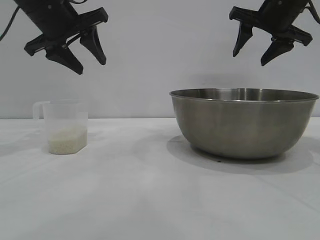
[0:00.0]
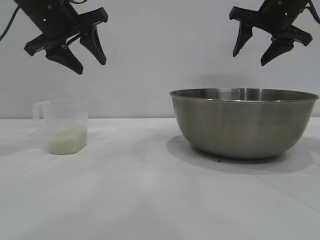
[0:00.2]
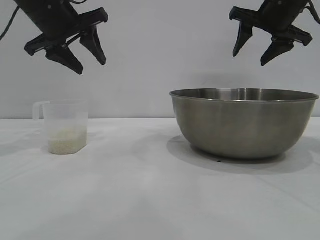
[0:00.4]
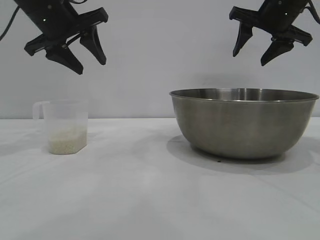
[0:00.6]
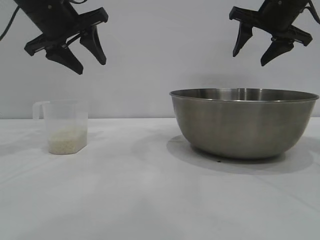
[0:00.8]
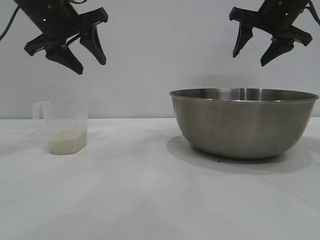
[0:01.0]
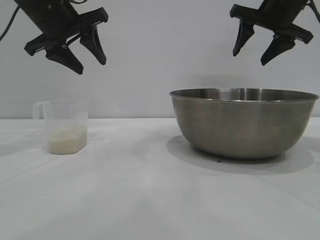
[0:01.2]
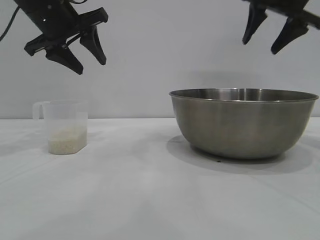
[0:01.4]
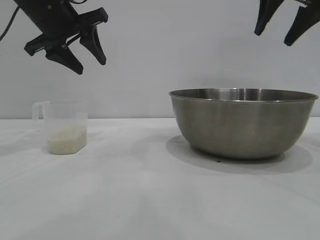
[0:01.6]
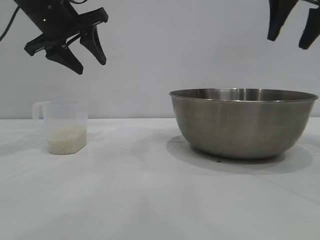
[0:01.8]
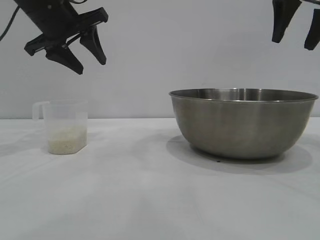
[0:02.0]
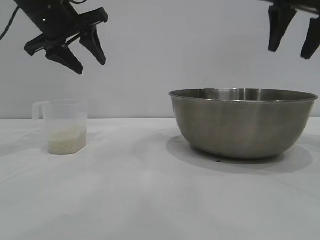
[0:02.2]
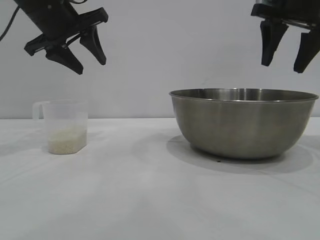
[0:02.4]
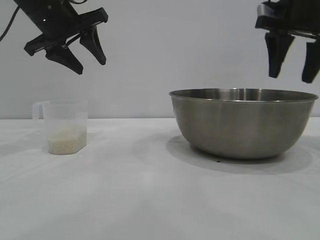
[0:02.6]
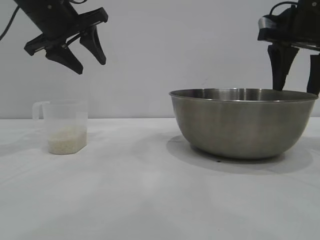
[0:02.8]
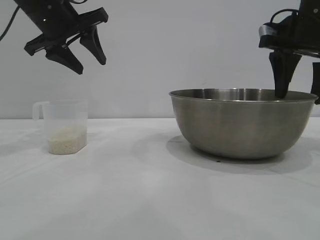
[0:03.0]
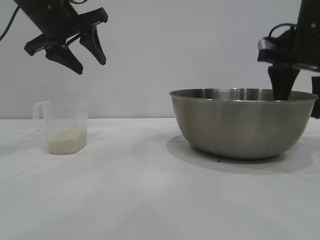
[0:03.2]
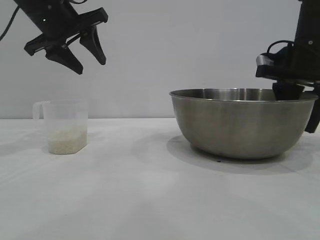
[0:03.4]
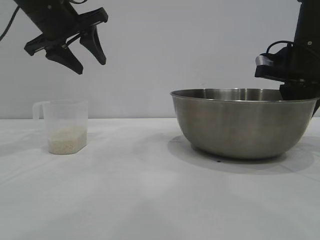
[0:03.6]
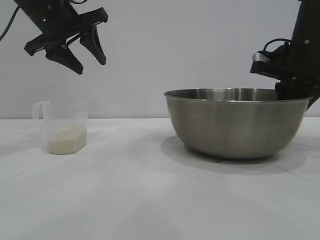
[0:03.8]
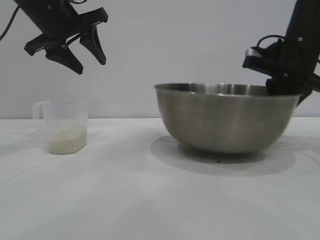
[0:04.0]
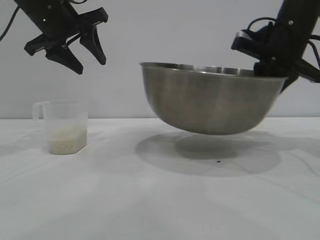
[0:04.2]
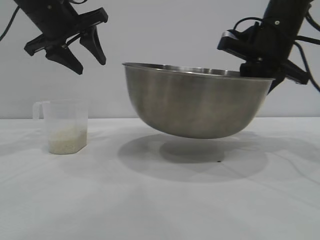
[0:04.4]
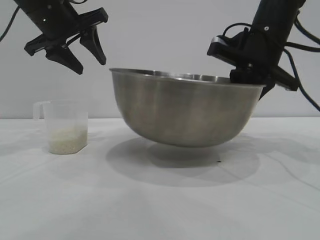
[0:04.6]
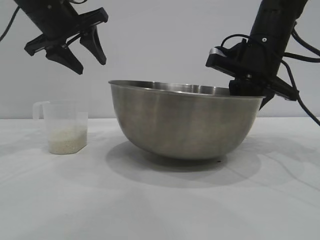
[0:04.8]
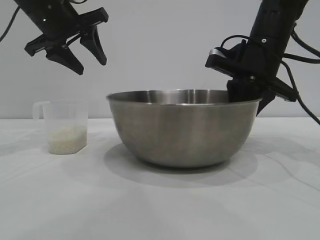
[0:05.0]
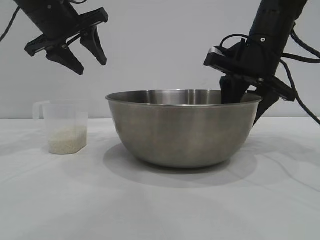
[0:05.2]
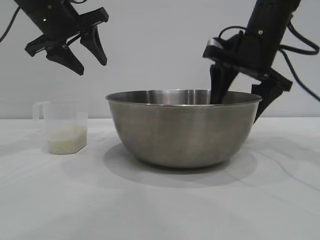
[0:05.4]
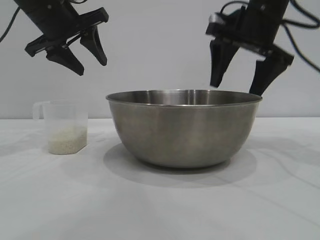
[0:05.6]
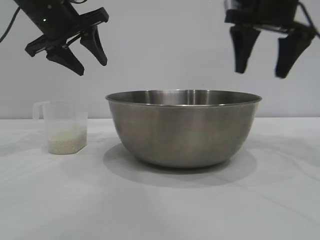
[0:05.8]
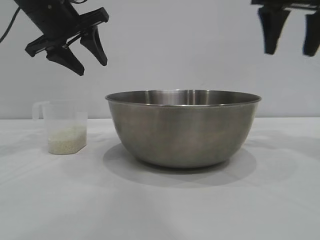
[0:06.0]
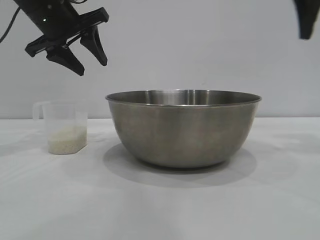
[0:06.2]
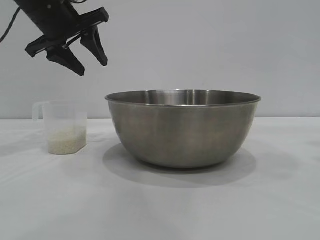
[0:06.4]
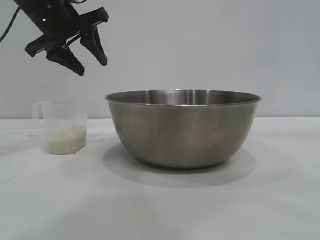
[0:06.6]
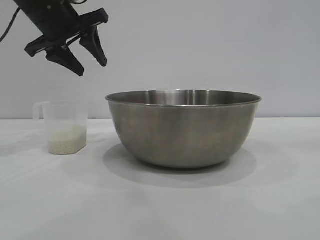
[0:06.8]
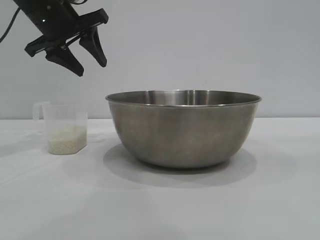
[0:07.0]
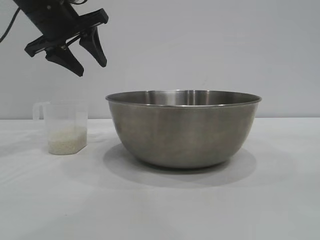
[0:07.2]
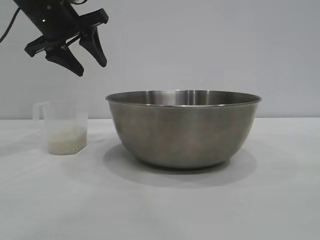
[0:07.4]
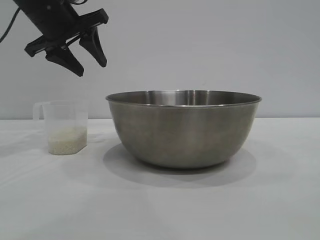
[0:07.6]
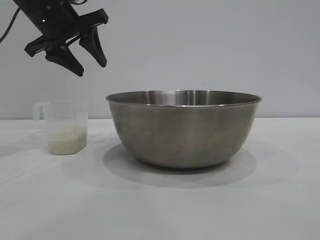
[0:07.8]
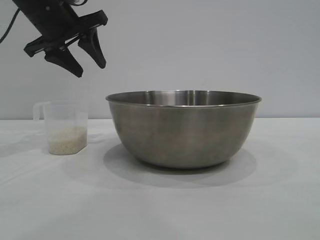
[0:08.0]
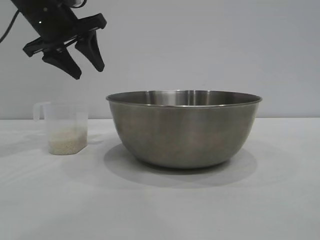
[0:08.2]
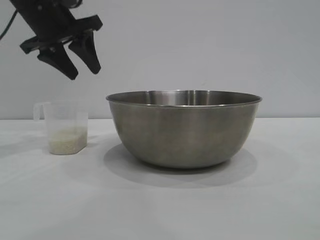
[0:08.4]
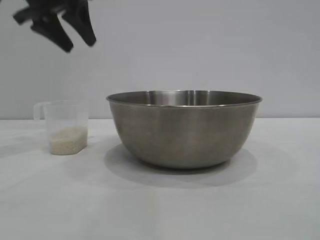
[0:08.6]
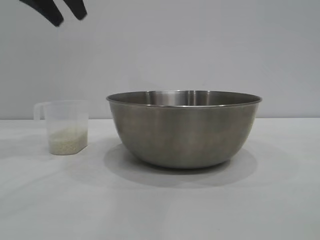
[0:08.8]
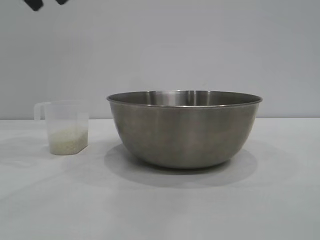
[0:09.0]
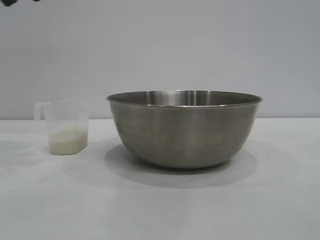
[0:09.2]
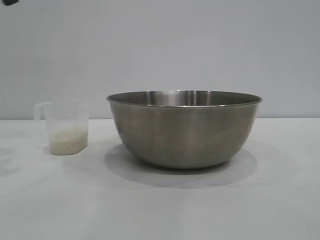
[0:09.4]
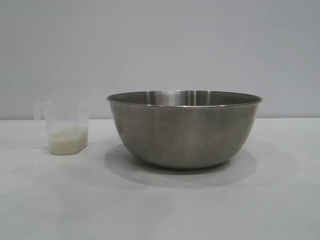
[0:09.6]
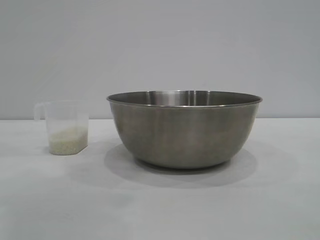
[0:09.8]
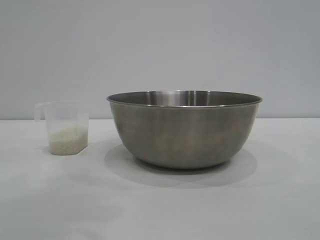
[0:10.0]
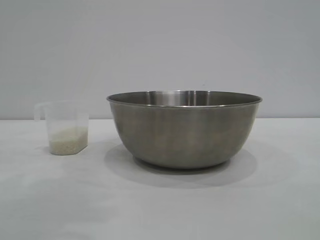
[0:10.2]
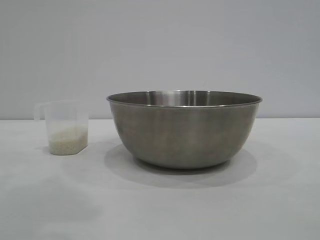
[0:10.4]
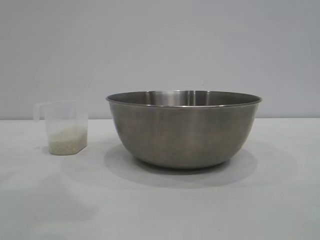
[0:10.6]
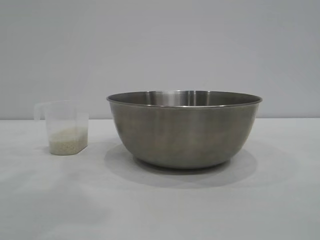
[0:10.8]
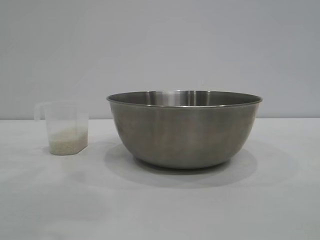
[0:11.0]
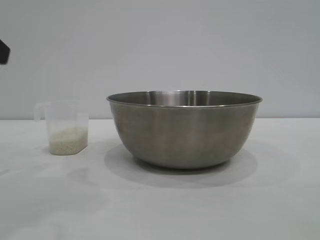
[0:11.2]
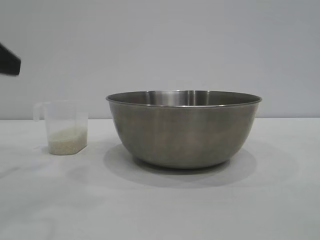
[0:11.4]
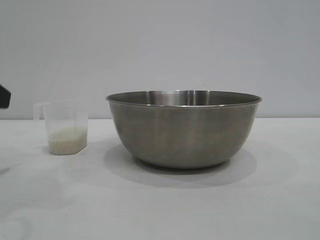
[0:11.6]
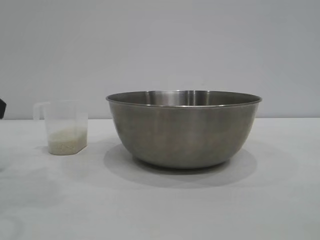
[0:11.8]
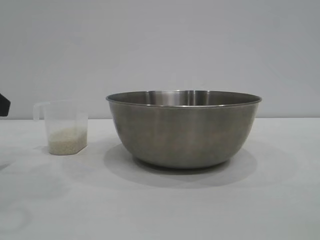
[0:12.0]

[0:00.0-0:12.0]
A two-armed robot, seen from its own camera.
Task of the whole recording: the right gripper grasp the rice container and place it in the center of the table, the left gripper grasp the rice scoop and pour the rice into the rice container.
Step, 0:00.0 to 0:04.0: Pick up the bowl with the right gripper.
Step, 0:04.2 to 0:05.6: Place the bowl in the center of view with the right gripper.

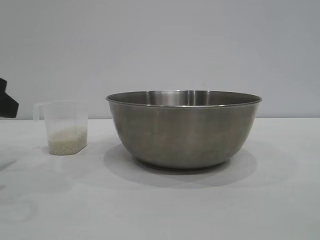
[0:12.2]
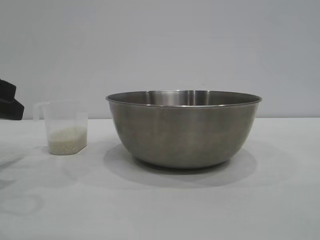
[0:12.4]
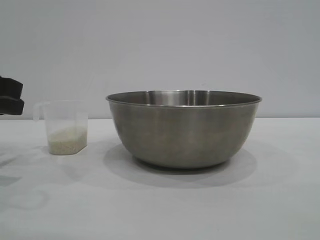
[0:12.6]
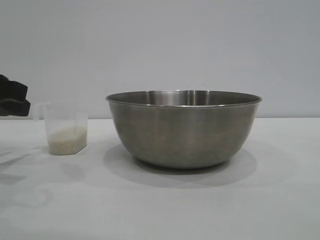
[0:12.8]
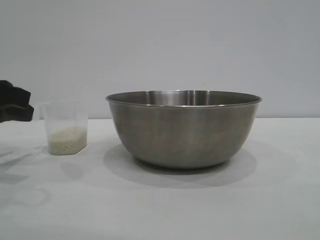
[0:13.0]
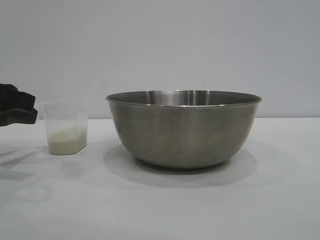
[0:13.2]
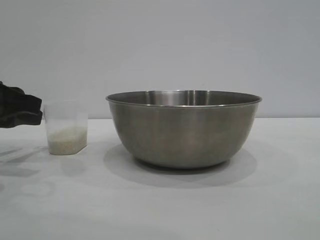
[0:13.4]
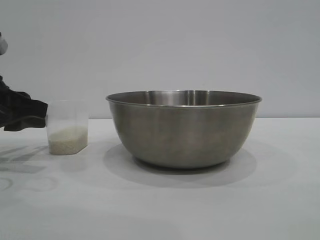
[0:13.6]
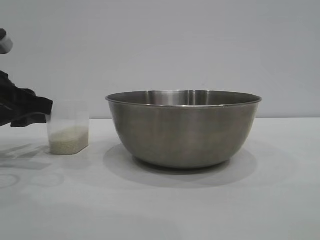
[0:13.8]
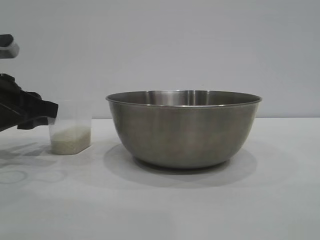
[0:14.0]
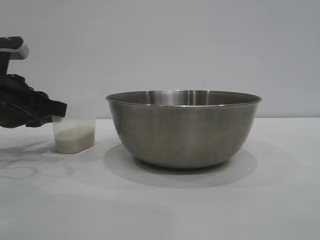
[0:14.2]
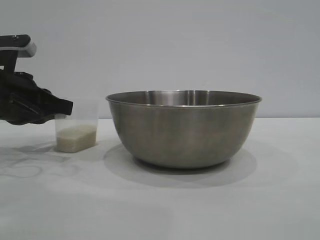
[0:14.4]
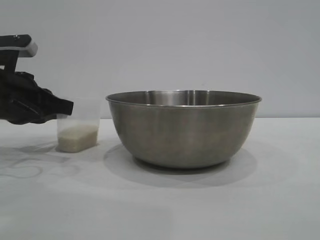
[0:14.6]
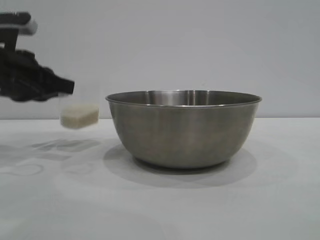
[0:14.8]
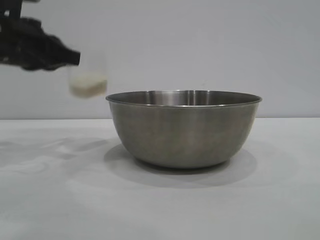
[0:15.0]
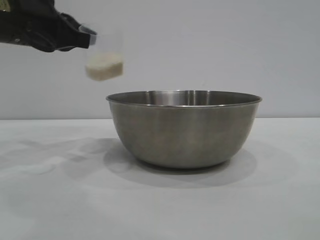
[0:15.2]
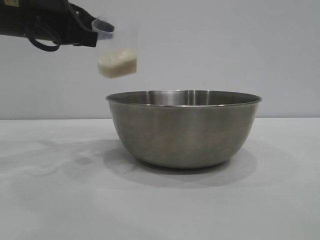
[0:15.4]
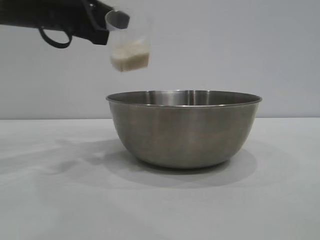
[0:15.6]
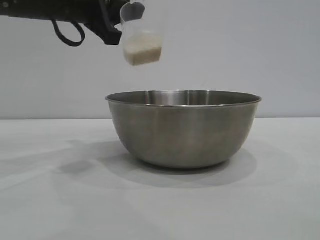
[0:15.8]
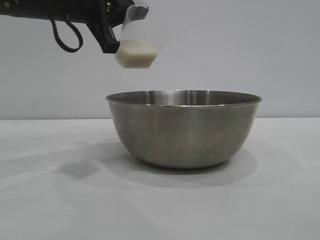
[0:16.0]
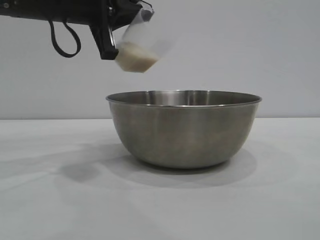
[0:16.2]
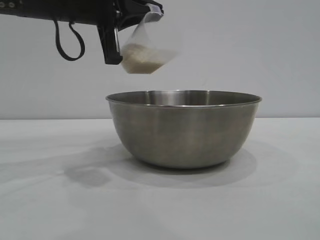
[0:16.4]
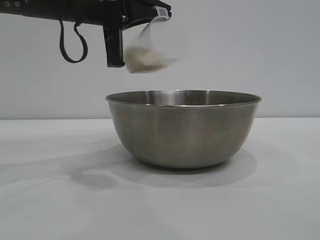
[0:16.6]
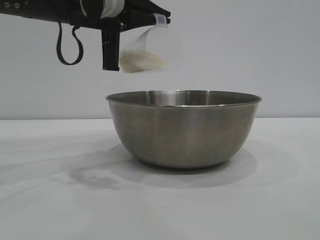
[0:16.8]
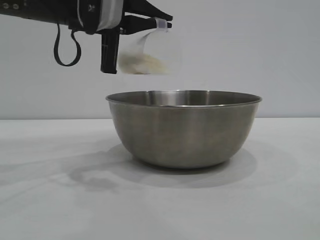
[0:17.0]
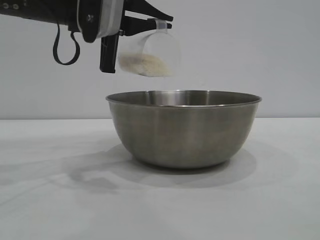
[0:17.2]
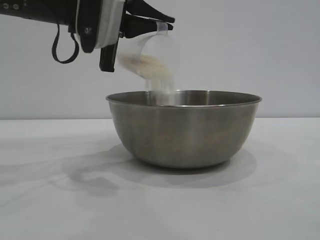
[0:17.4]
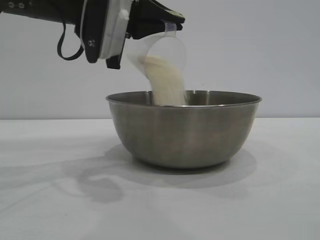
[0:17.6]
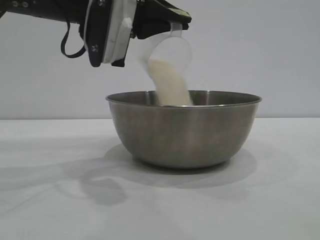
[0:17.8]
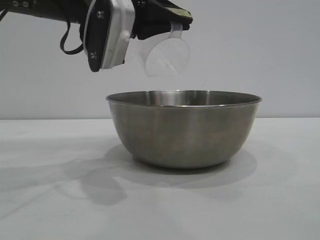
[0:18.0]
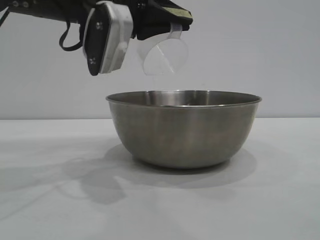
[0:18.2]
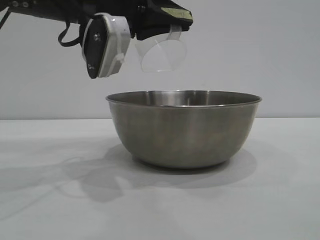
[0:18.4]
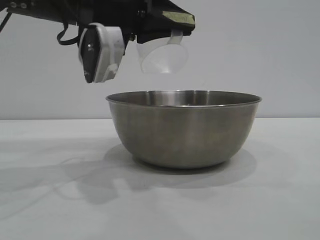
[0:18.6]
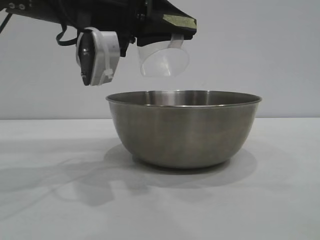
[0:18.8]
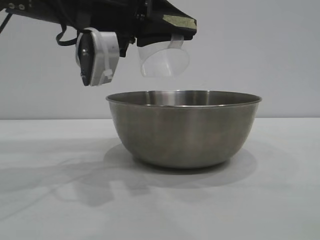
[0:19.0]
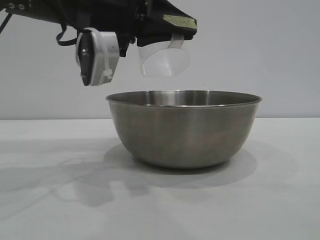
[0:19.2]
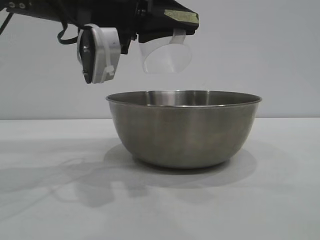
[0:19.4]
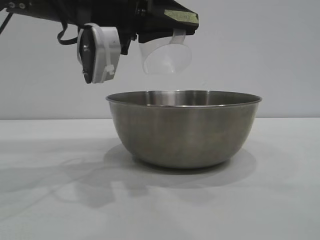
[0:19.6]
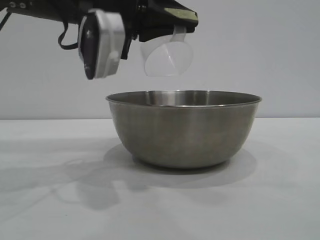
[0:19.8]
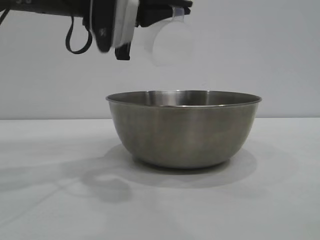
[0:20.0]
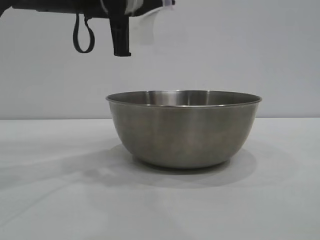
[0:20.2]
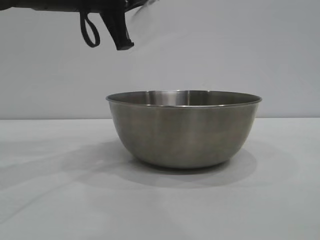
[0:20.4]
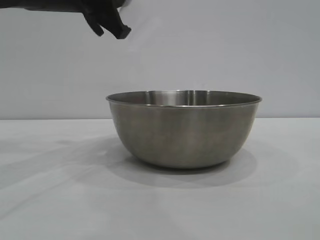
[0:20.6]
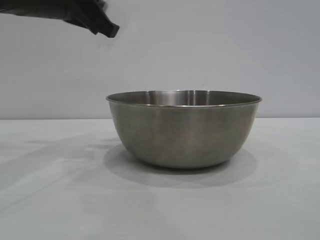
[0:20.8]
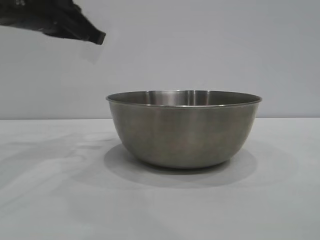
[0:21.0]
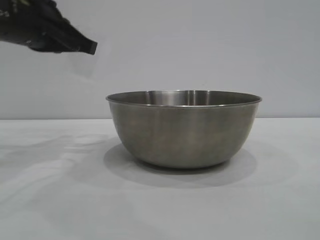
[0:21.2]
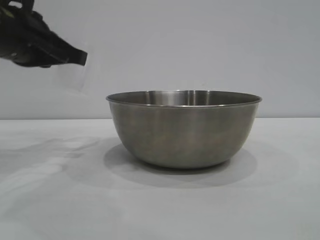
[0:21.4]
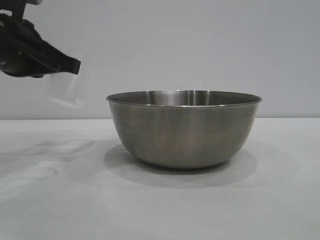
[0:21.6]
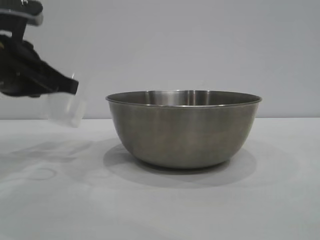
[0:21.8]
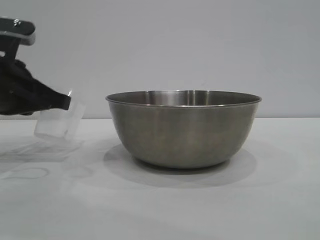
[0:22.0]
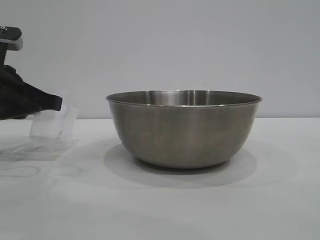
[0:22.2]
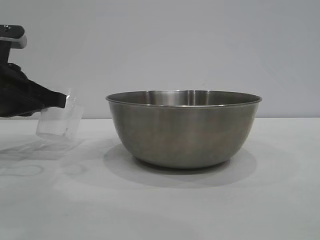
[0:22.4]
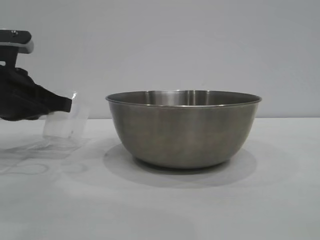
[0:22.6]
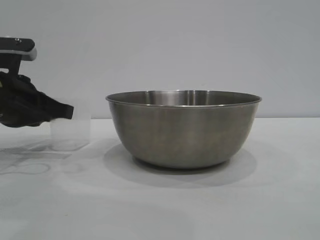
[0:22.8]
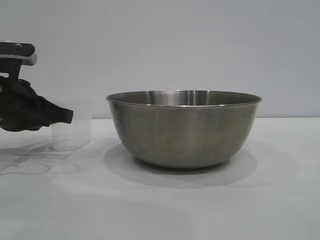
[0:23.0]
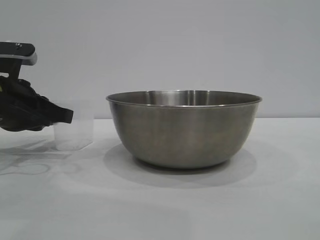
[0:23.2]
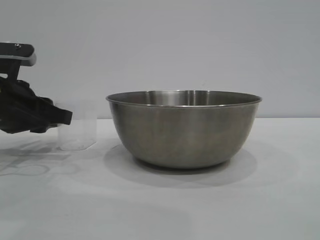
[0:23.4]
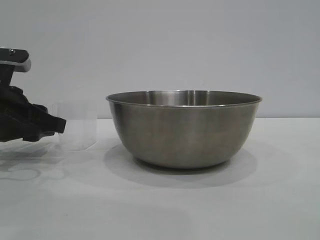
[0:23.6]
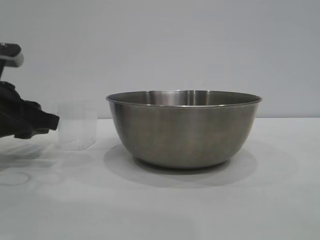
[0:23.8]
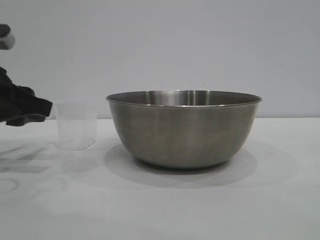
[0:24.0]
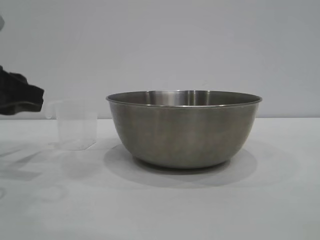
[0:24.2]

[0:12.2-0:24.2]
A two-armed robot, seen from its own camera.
Task of the whole recording: the right gripper grasp the rice container and place it in the center of the table, the left gripper grasp the rice scoop and pour the rice into the rice container.
Step, 0:12.2 to 0:14.6: Pick up the cup with rice in it with the left gripper.
Step, 0:15.0 to 0:18.2: Pour the rice from the cup into the bowl with the left gripper.
Step, 0:18.6 to 0:23.8: Place the cup on the table with the left gripper.
